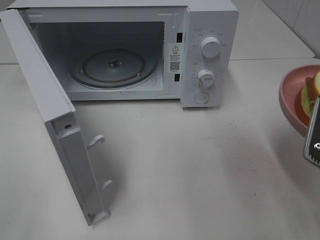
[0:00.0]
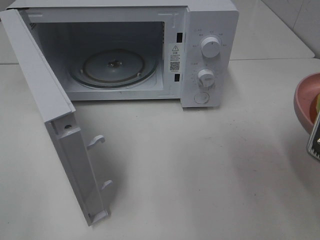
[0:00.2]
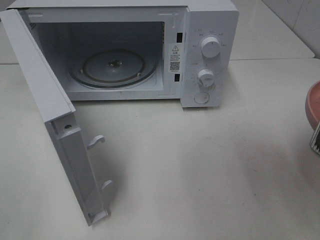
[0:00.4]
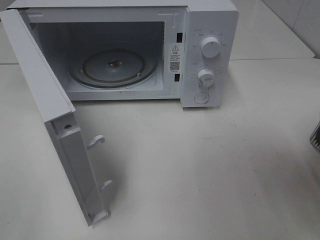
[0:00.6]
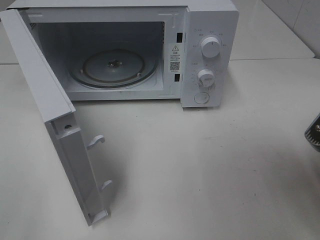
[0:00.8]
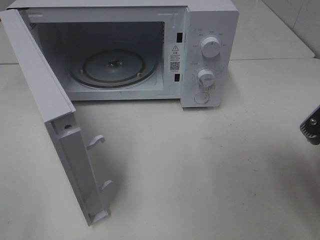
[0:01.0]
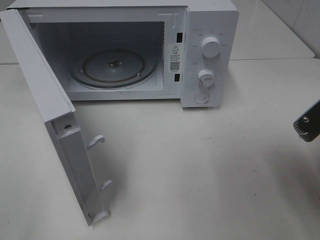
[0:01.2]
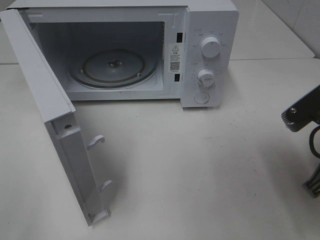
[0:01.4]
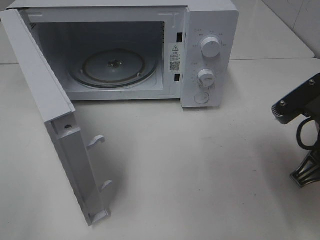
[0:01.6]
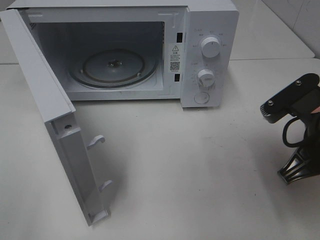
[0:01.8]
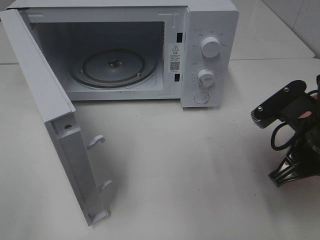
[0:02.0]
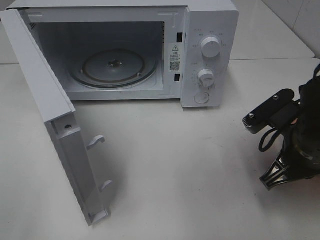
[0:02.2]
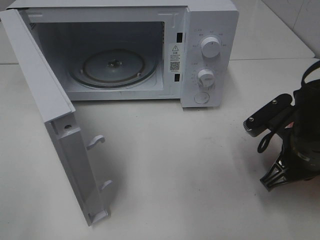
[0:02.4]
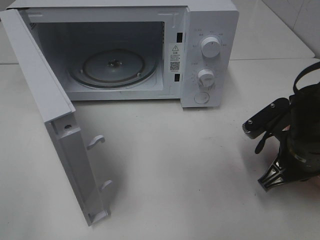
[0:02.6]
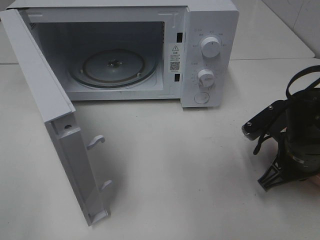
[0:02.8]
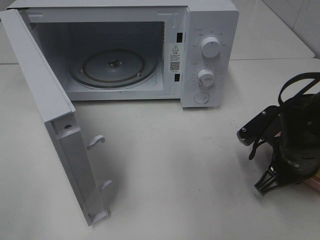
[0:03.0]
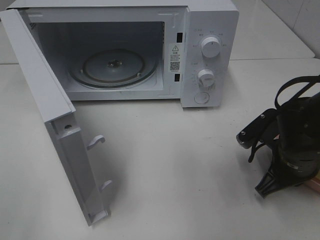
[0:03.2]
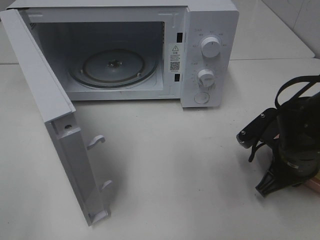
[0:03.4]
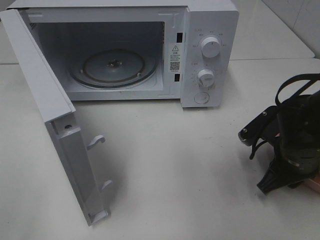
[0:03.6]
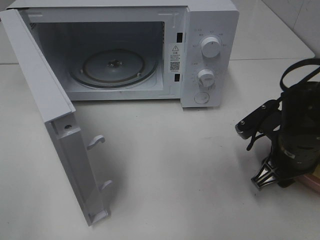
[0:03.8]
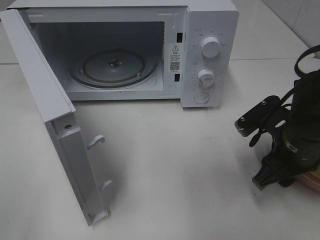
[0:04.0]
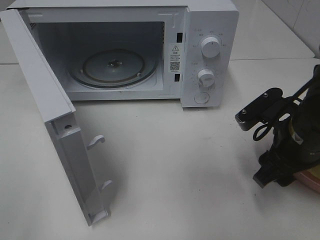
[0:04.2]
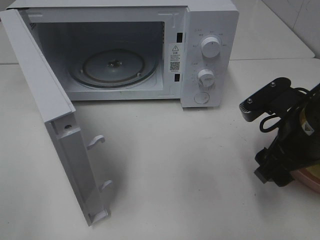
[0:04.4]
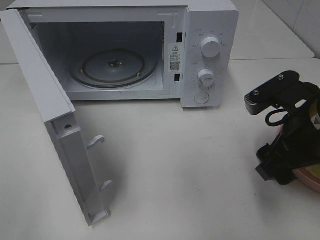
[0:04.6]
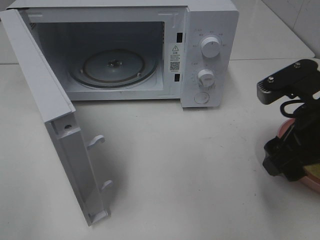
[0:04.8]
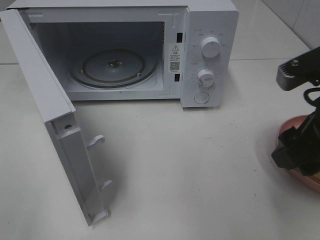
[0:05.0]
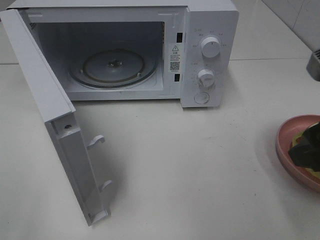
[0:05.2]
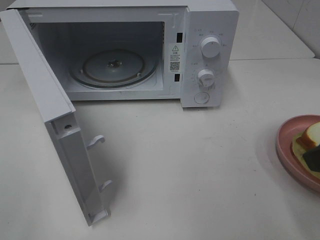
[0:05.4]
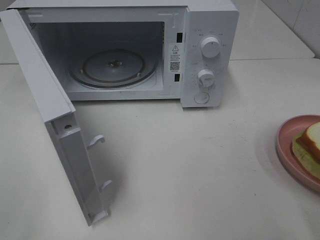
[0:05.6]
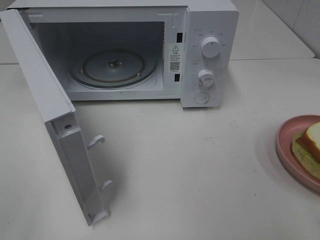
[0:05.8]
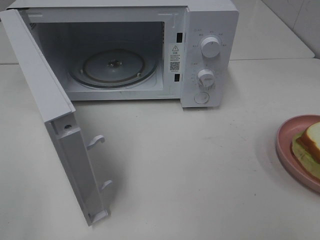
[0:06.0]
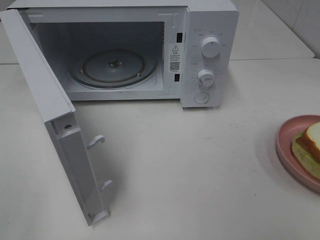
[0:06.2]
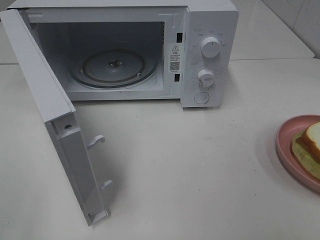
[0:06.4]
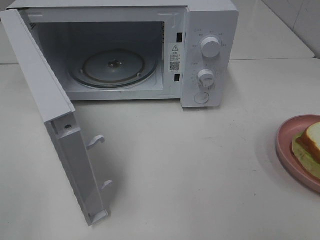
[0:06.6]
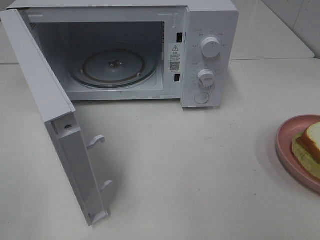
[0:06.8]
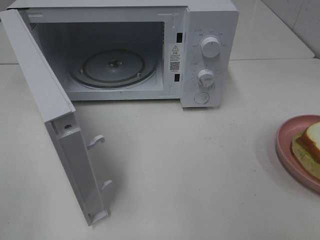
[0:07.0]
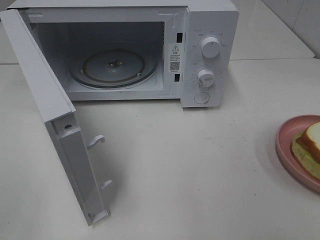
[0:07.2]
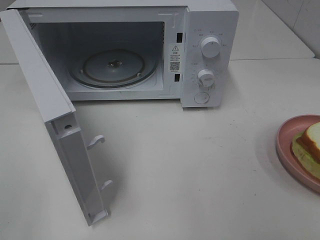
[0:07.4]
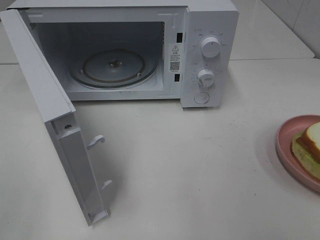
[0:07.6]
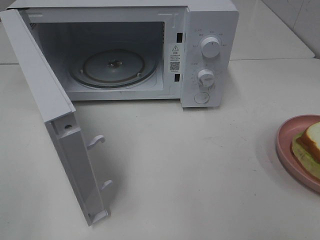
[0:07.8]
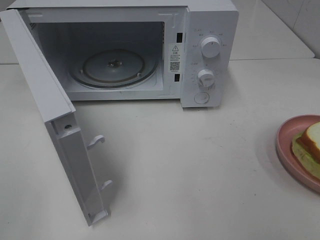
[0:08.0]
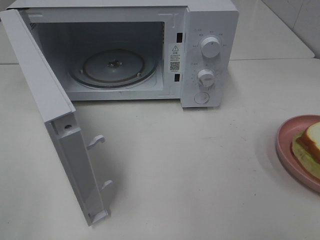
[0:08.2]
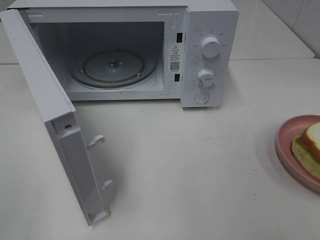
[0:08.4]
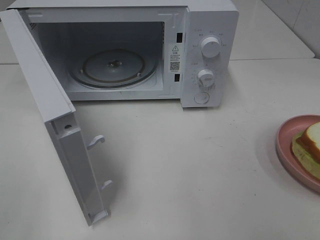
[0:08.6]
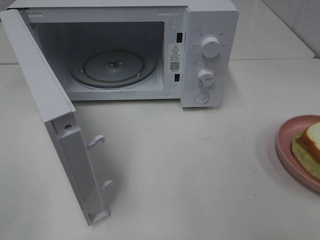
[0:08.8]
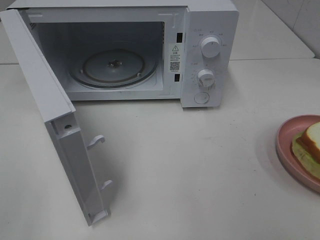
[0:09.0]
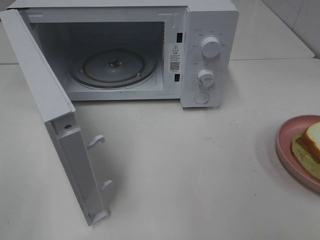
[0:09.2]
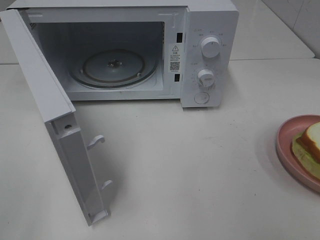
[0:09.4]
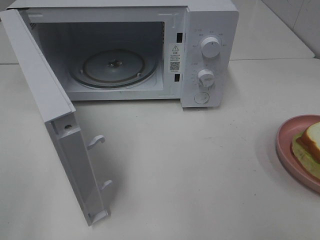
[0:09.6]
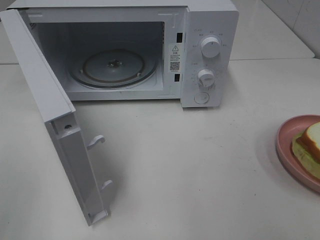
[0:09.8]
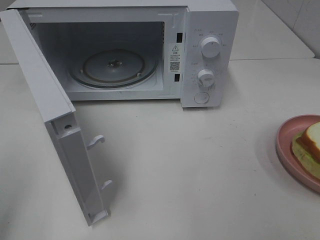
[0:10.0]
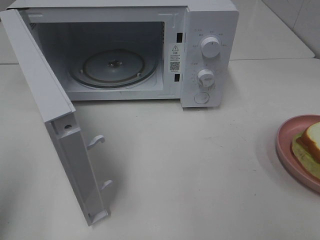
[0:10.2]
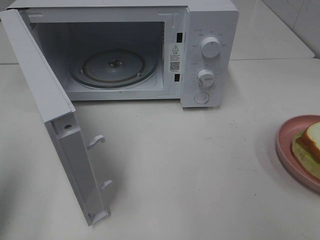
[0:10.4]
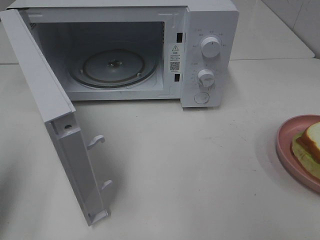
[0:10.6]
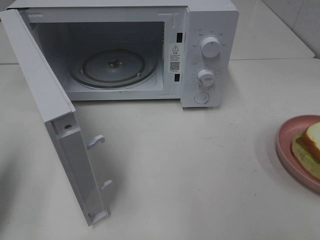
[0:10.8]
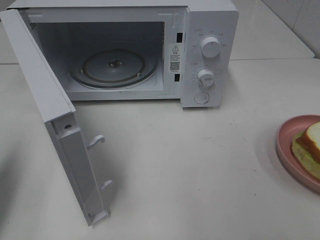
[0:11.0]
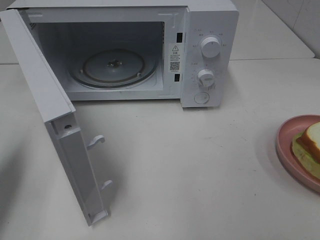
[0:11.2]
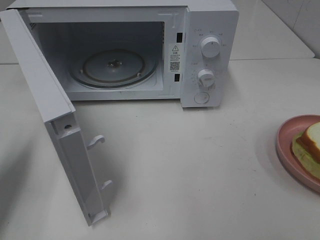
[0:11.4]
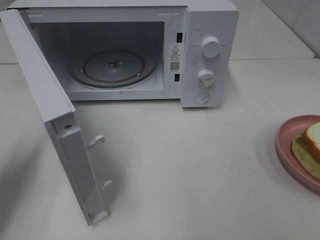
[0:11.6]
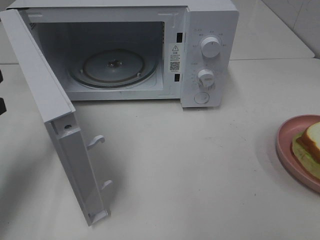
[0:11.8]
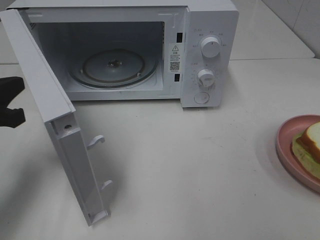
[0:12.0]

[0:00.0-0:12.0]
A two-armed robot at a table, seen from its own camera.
Task of the whole recording: Heat Sandwich.
Step, 0:00.0 to 0:05.0: Right hand: place the plate in the microwave.
0:00.0 to 0:01.6: The right gripper ends up roughly 5 cm from where it was.
0:01.6 to 0:03.0: The right gripper shifts roughly 10 cm downward and forward.
0:03.0 to 0:04.4: The right gripper shifts about 10 cm upward, and opens.
0:04.4 to 0:06.0: The right gripper goes about 20 cm backward, upward and to the right.
0:07.6 to 0:09.0: Neither gripper changes place.
0:09.0 to 0:10.4: The left gripper travels forward by roughly 10 cm, and closes up.
0:10.4 to 0:12.0: The left gripper shifts about 15 cm forward and downward.

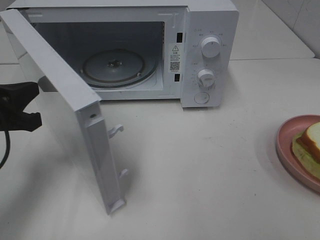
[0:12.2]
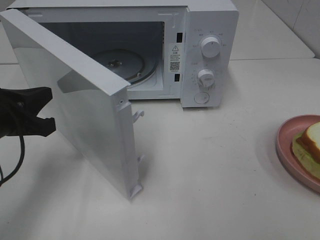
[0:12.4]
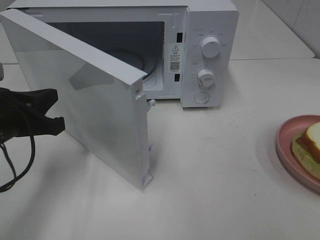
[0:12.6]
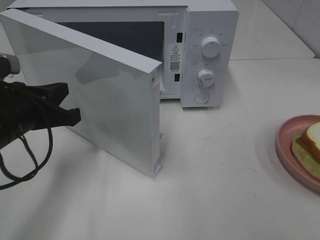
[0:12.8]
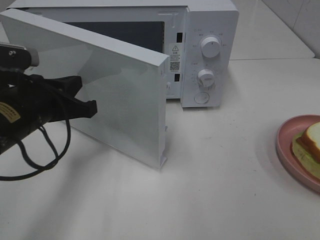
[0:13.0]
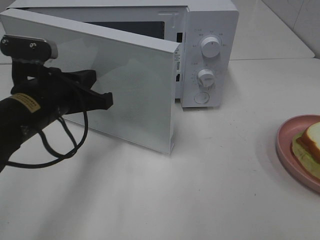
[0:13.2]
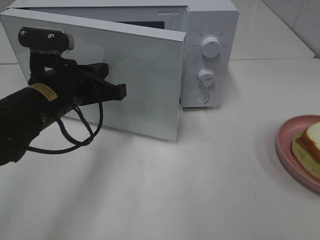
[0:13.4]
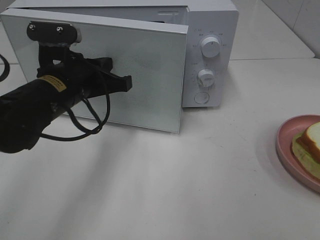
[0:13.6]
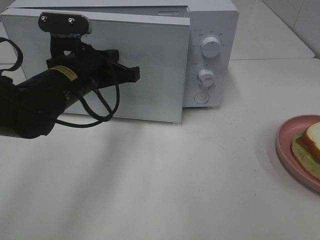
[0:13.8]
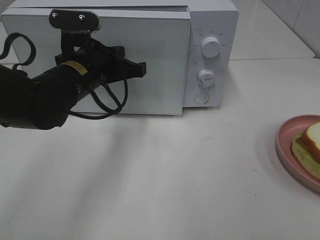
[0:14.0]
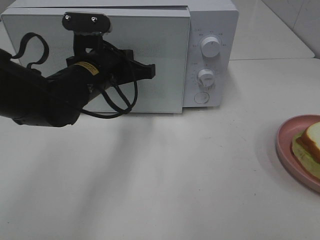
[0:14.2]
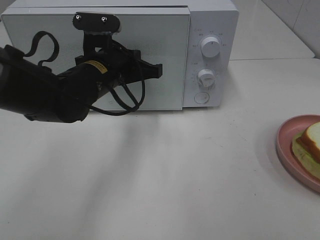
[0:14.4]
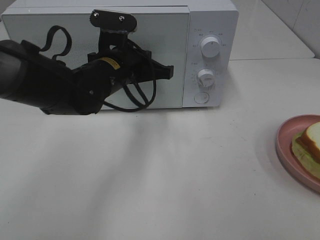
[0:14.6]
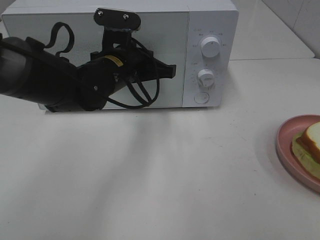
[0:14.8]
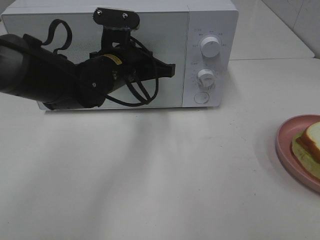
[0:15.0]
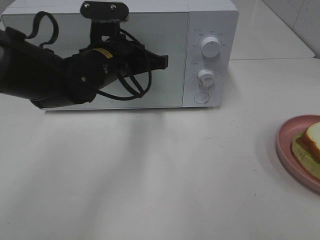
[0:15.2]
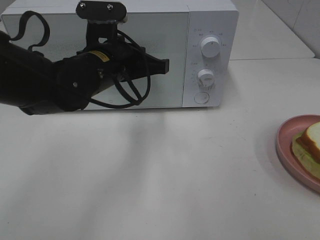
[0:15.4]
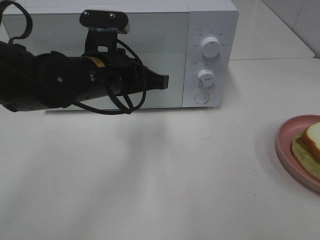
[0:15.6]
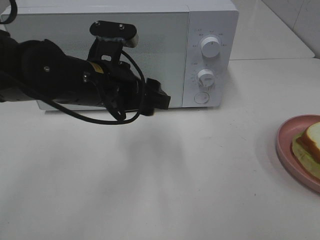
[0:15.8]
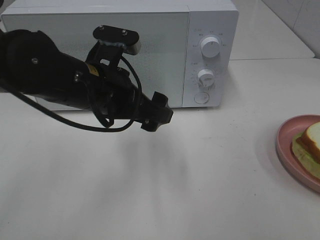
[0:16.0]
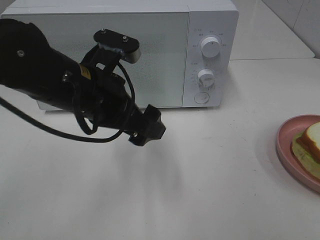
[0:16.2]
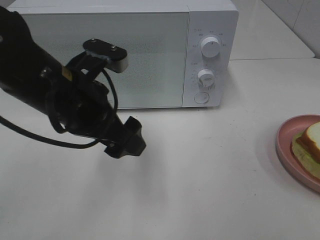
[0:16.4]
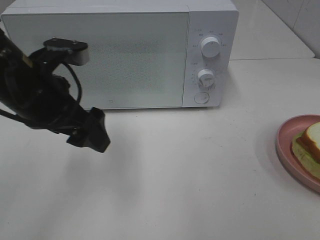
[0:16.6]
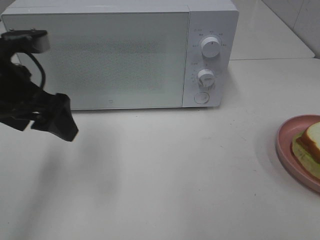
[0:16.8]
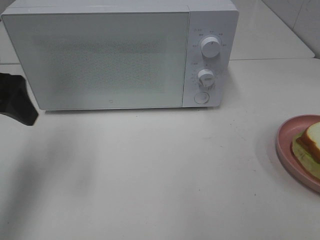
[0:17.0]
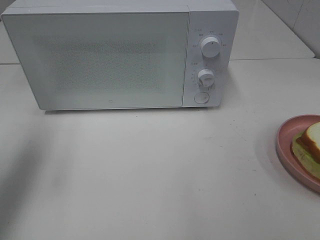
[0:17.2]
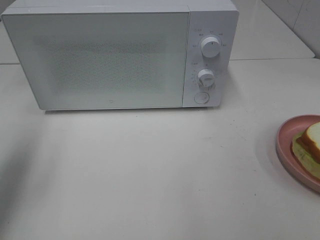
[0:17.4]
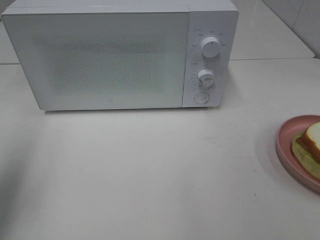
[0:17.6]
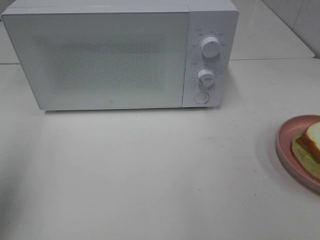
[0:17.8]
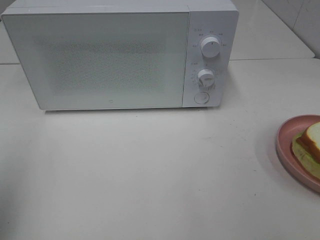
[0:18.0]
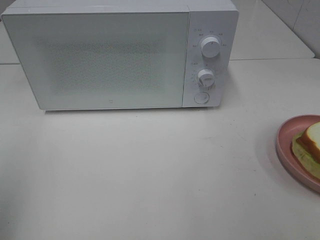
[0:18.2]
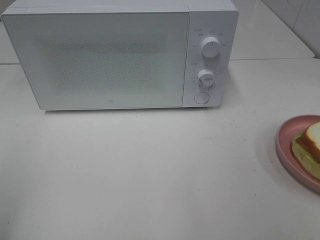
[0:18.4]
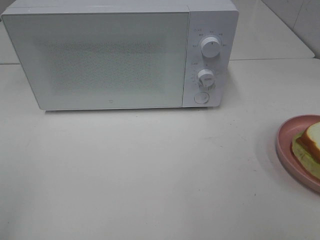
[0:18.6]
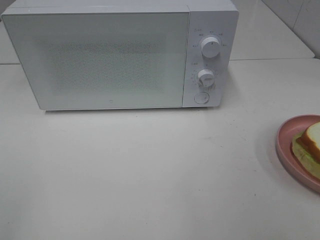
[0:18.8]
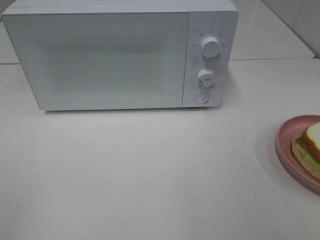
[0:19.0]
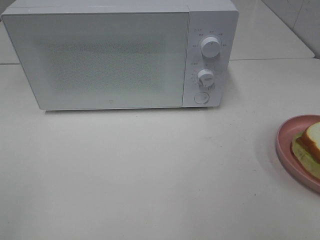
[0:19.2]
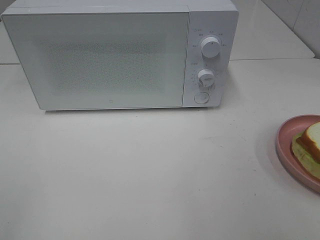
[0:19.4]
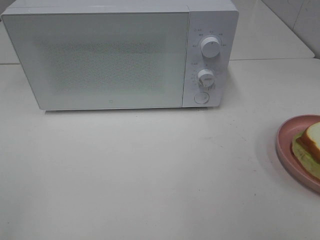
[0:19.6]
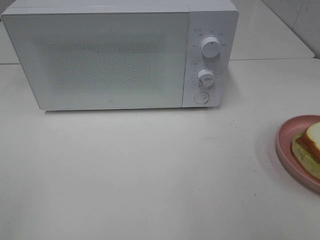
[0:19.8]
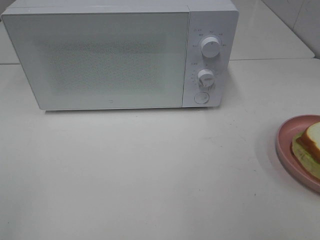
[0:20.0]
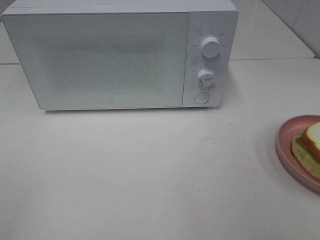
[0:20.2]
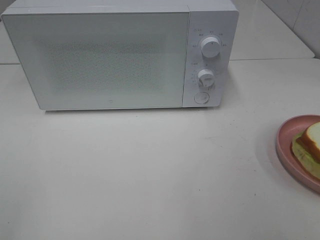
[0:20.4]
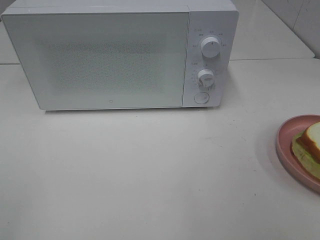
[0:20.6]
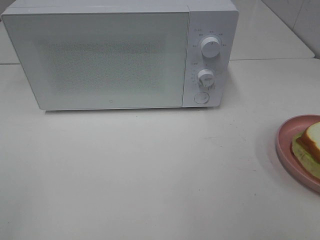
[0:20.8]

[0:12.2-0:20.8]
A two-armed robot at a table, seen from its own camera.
Task of the whole recording: Heat Sandwich.
Step, 0:12.2 to 0:15.2: Left hand: close the microwave door.
0:12.2 to 0:13.6: The left gripper moves to the right and forward, roughly 15 cm.
0:13.6 to 0:15.0: The left gripper goes approximately 10 cm to the right and forward.
0:15.0 to 0:16.6: The left gripper is displaced to the left, backward and upward by some 15 cm, and opens.
0:16.6 to 0:18.0: The left gripper travels to the left, backward and upward by about 25 cm.
0:18.0 to 0:19.4: The left gripper goes approximately 10 cm backward.
0:19.4 to 0:20.8: Both grippers stay put.
